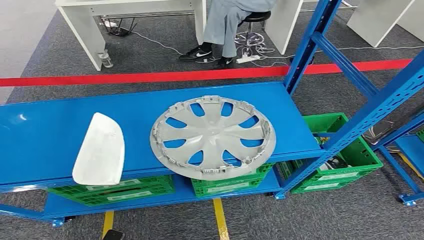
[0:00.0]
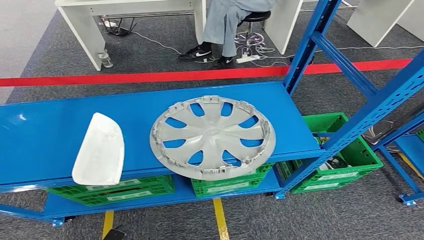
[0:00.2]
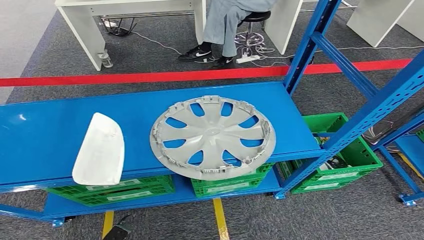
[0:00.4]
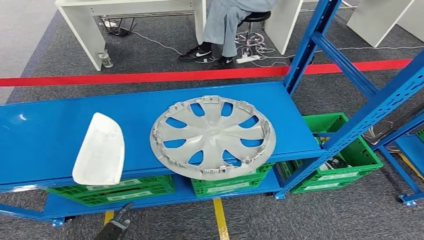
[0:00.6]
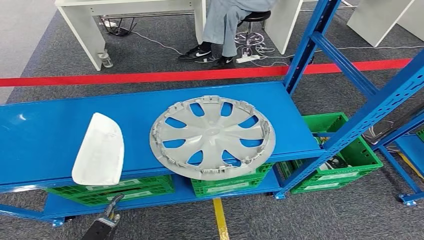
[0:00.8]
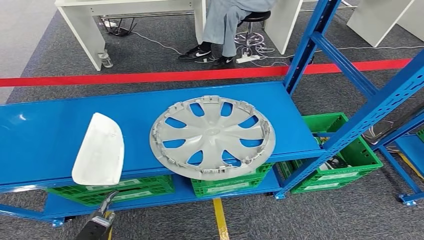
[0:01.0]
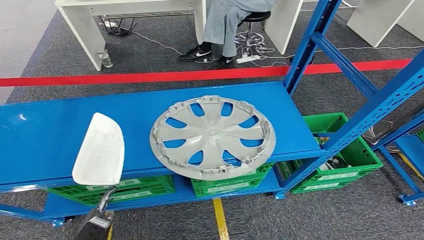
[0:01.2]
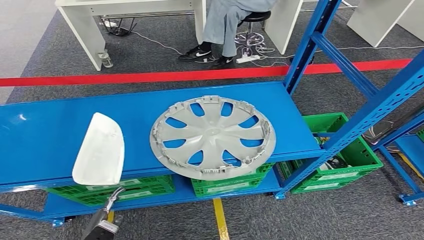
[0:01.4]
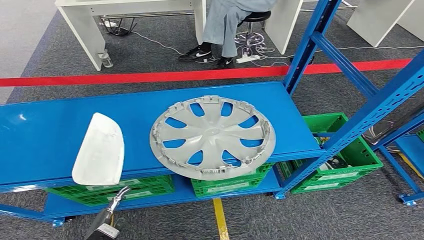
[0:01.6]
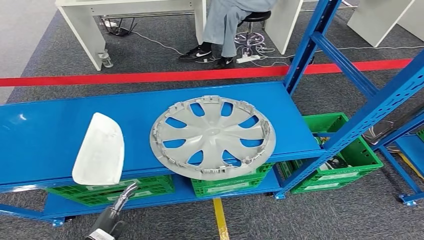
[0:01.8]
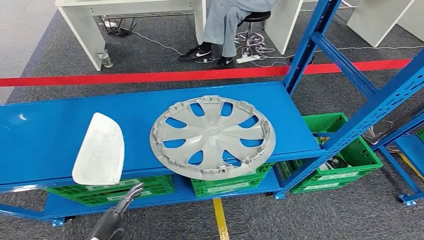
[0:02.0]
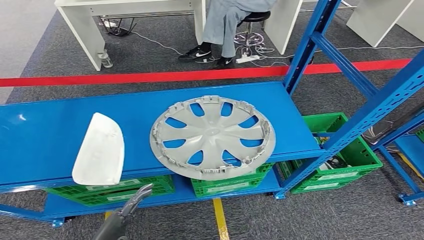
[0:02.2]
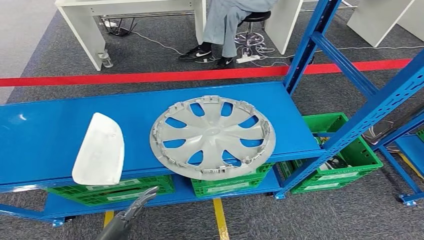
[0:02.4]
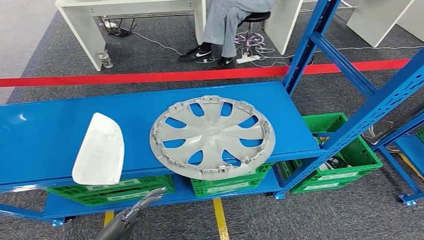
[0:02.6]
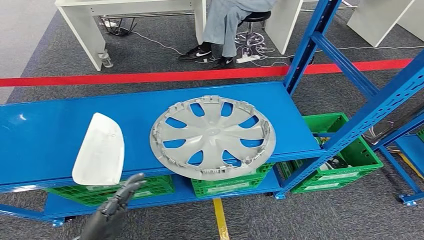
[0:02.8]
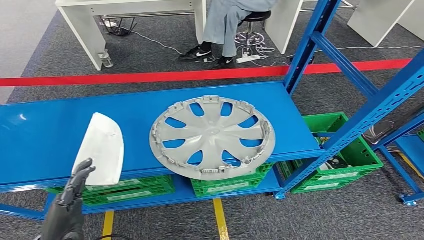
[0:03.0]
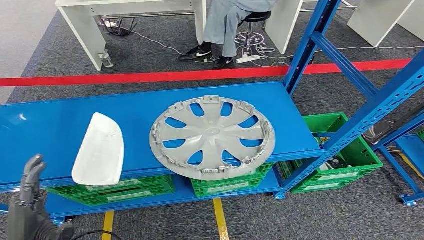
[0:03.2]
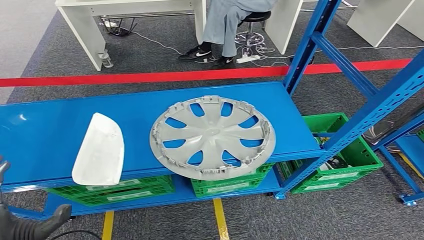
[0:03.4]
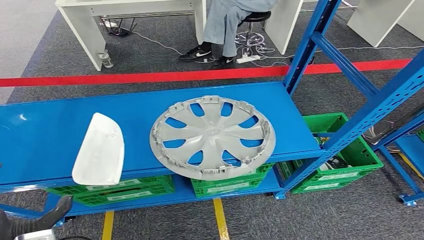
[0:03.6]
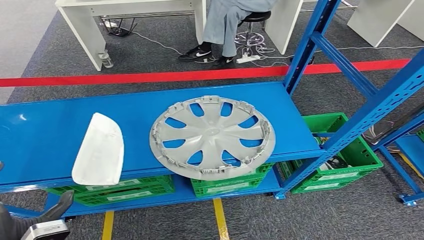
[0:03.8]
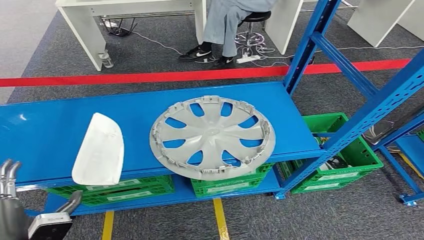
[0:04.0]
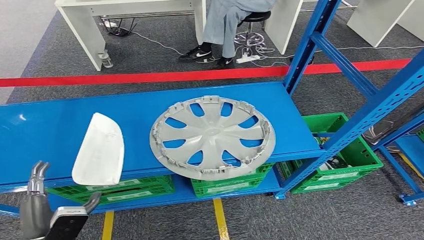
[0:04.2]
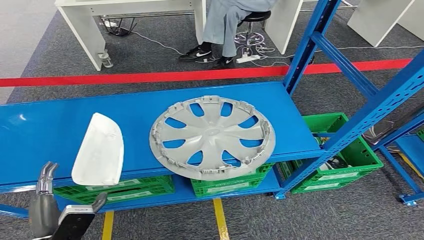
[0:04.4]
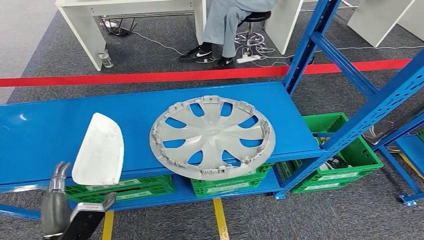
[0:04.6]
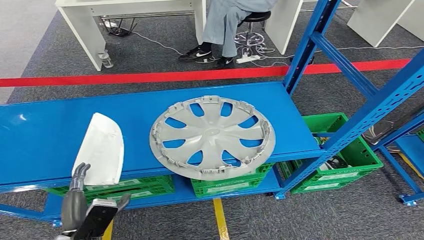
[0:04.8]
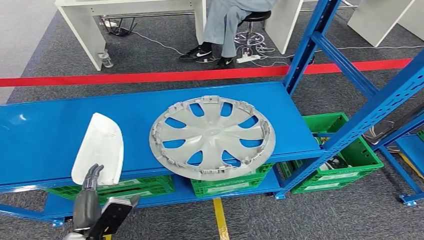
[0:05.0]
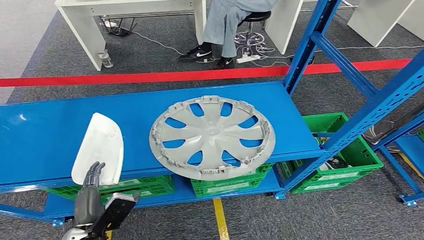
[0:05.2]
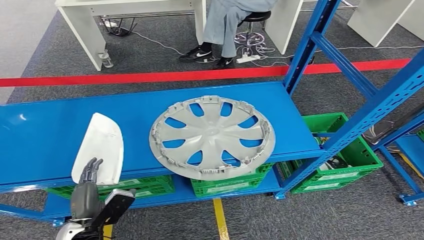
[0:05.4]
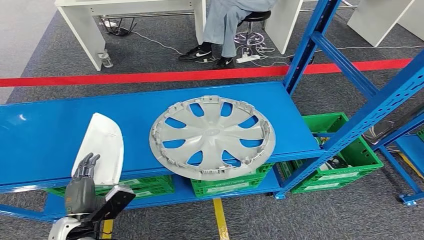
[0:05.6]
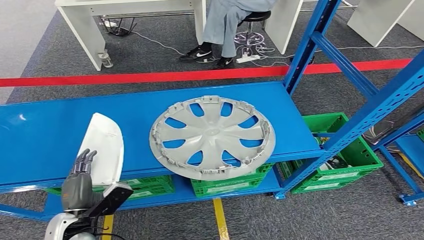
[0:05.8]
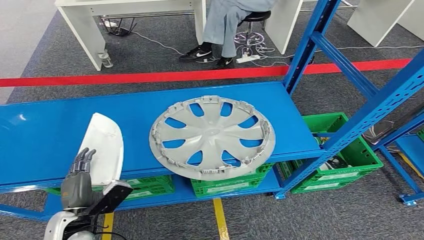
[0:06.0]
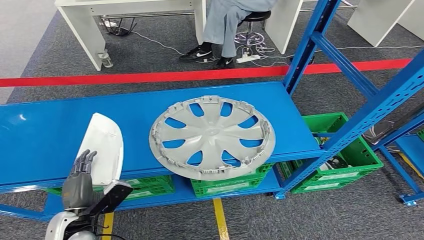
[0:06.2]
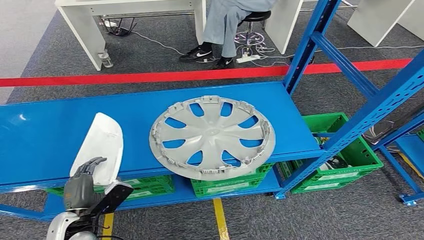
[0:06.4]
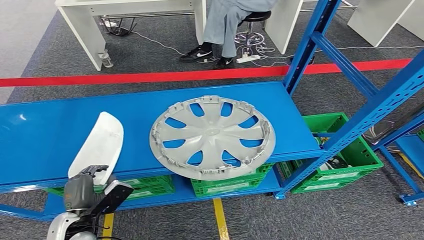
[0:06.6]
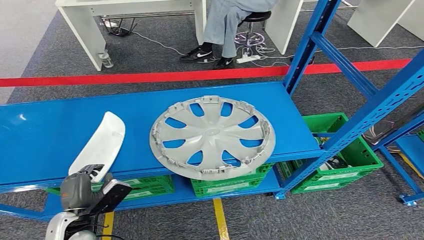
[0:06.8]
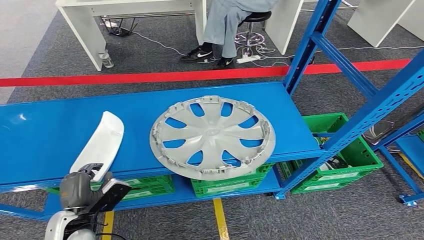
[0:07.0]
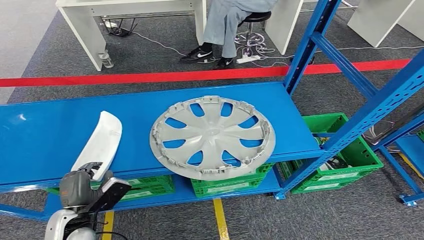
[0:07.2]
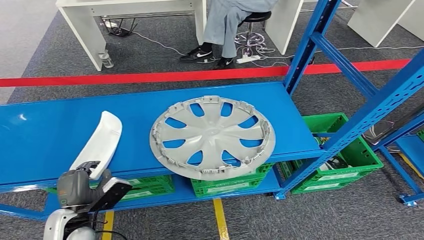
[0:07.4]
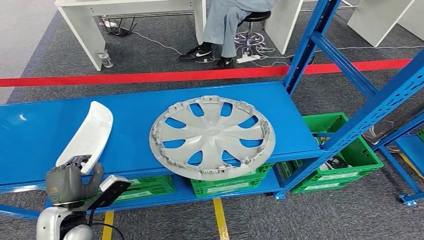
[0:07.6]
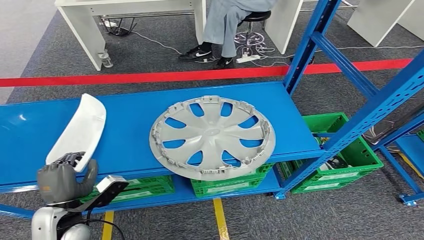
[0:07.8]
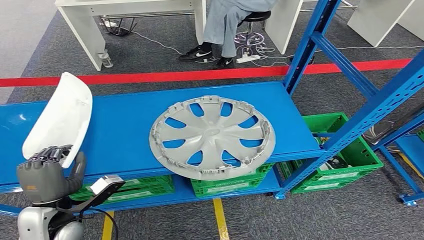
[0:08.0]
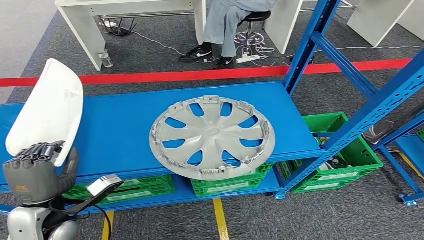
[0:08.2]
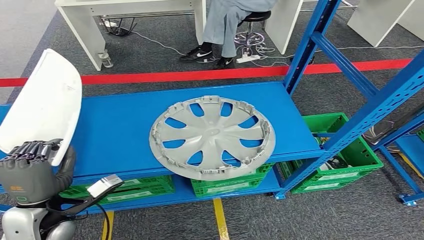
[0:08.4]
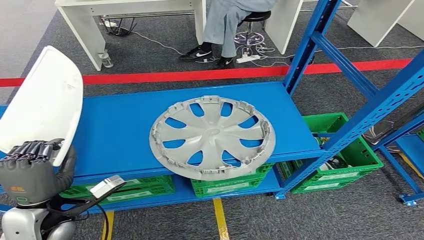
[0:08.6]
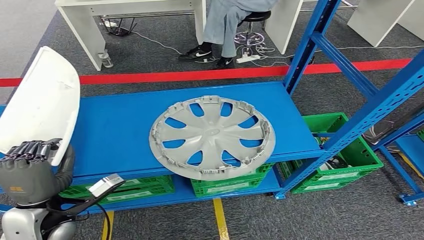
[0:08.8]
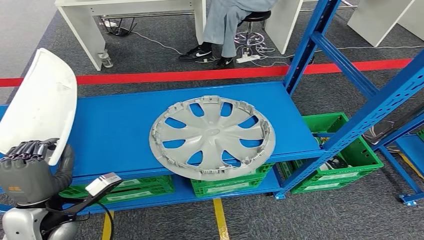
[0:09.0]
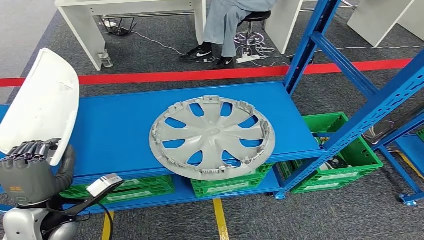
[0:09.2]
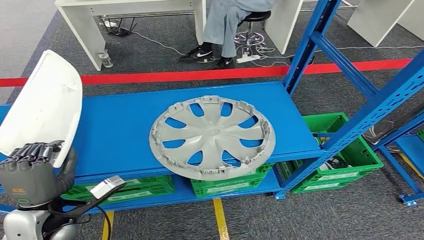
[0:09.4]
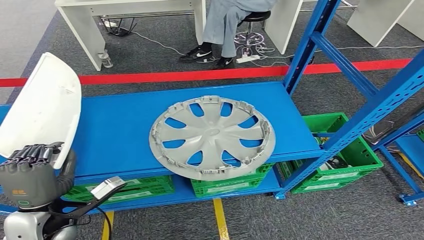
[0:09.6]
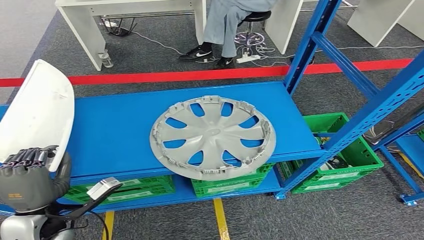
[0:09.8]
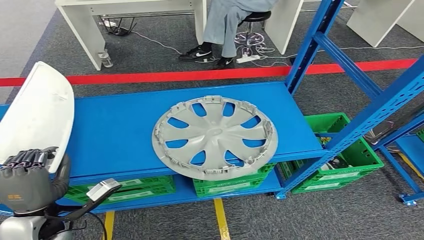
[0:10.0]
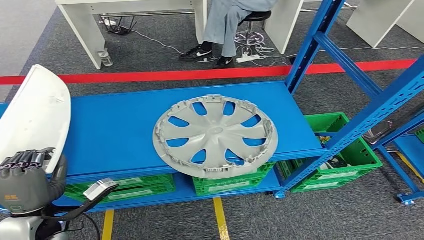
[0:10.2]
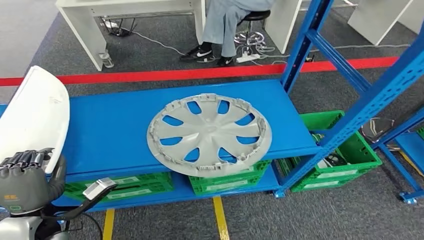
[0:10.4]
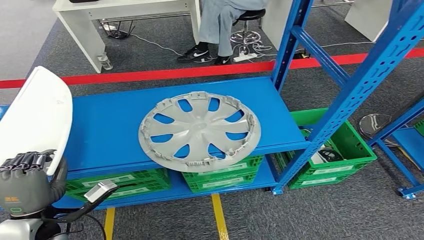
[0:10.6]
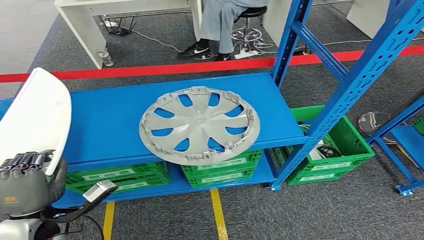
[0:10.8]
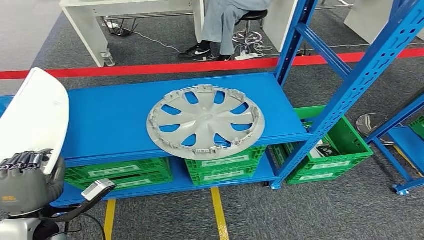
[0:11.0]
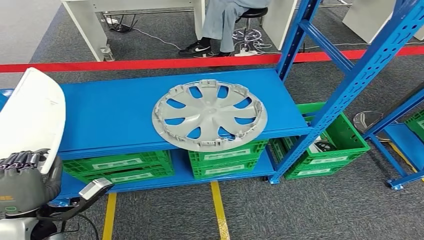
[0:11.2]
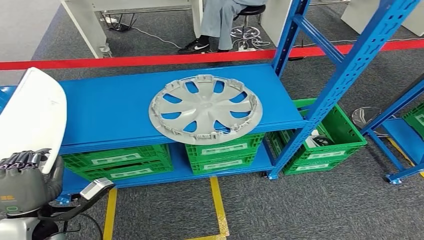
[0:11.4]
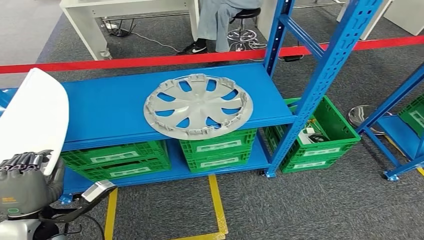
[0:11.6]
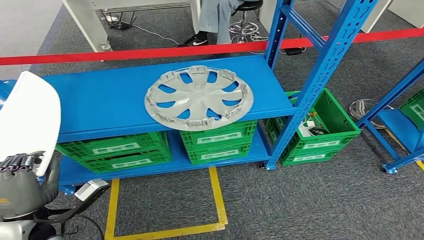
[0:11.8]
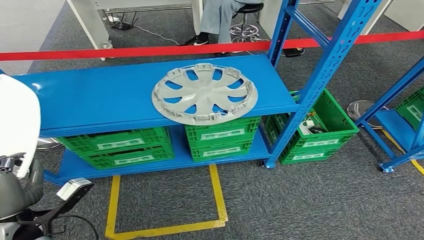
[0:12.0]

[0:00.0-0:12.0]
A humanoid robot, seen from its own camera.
0:01.6 to 0:03.0: The left hand moves upward, roughly 15 cm.
0:04.4 to 0:06.0: The left hand heads forward, covering about 5 cm.
0:06.0 to 0:07.6: The hands stay close to where they were, moving slightly.
0:07.6 to 0:09.0: The left hand is displaced upward by approximately 10 cm.
0:09.0 to 0:10.4: There are only small adjustments of the hands.

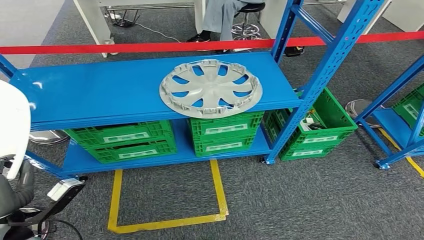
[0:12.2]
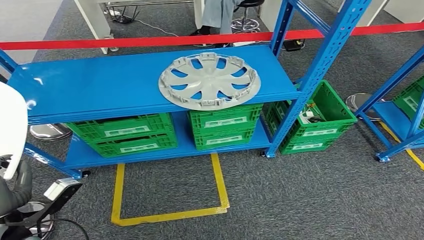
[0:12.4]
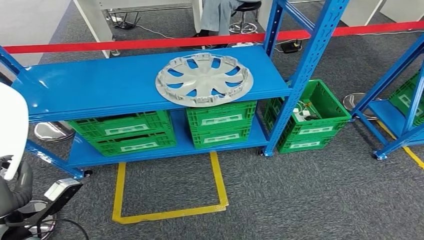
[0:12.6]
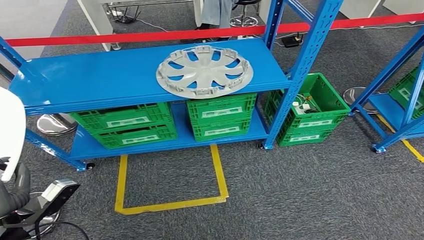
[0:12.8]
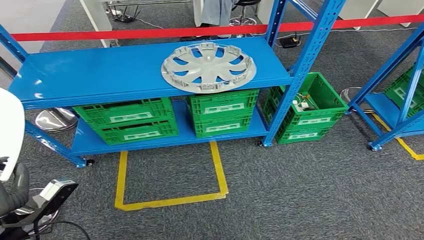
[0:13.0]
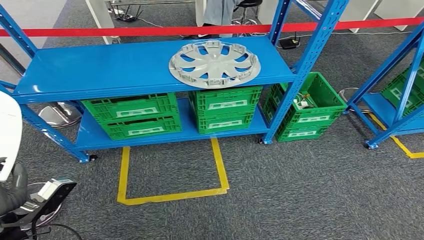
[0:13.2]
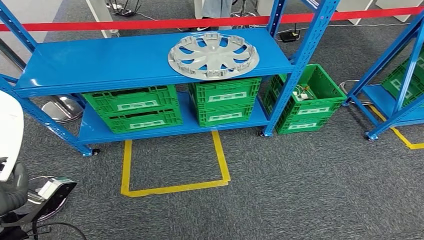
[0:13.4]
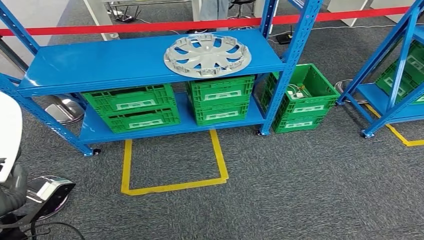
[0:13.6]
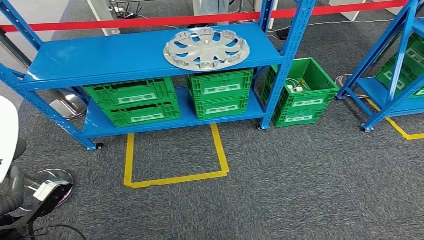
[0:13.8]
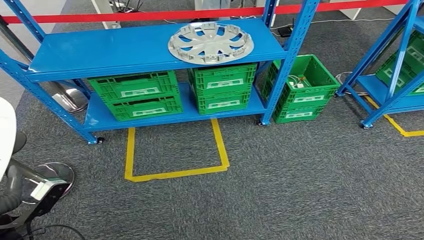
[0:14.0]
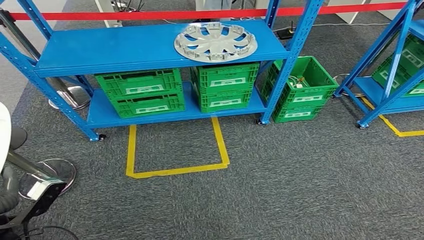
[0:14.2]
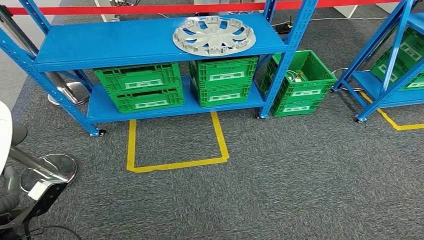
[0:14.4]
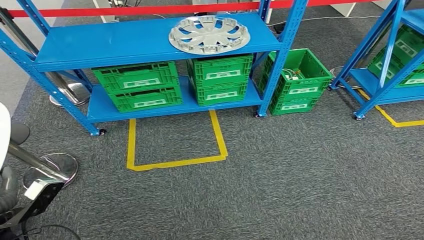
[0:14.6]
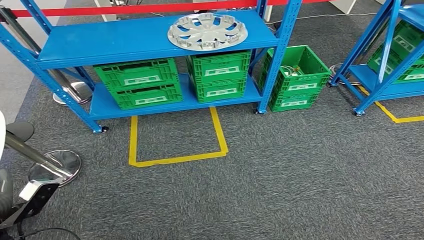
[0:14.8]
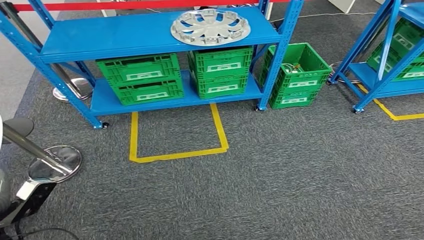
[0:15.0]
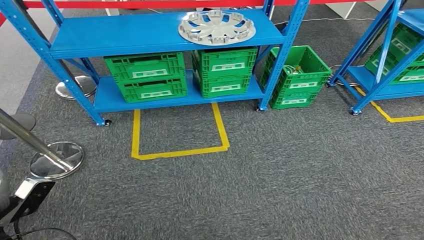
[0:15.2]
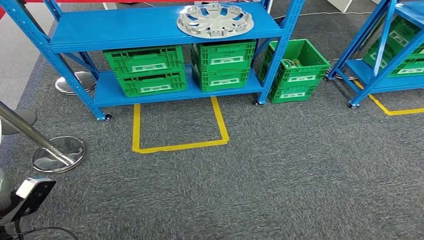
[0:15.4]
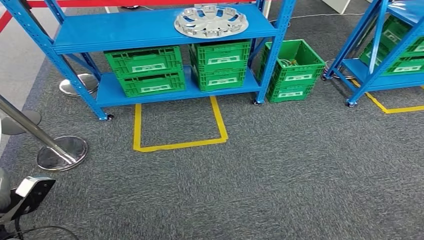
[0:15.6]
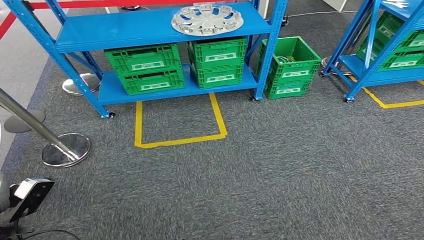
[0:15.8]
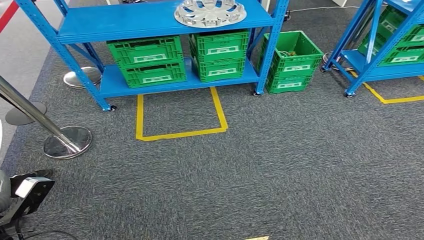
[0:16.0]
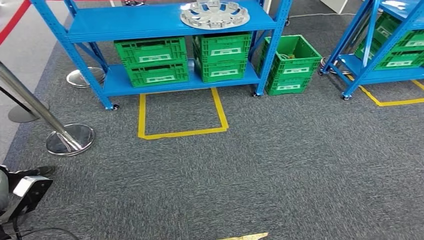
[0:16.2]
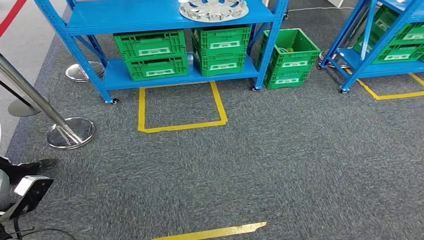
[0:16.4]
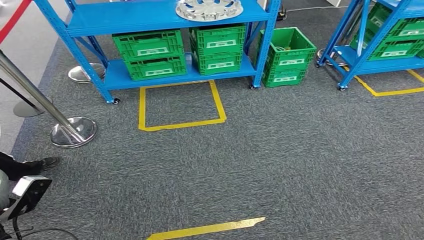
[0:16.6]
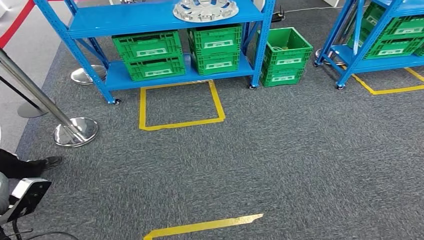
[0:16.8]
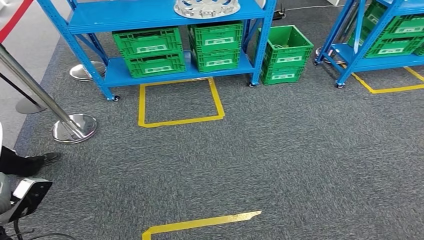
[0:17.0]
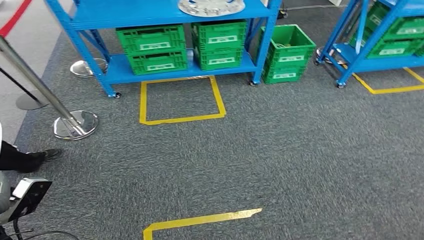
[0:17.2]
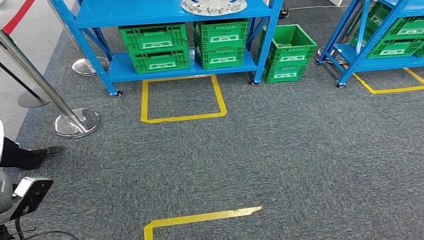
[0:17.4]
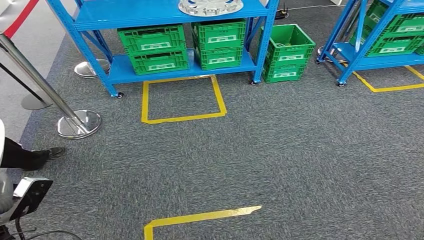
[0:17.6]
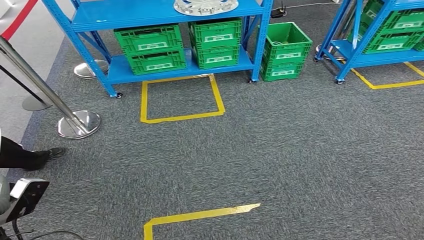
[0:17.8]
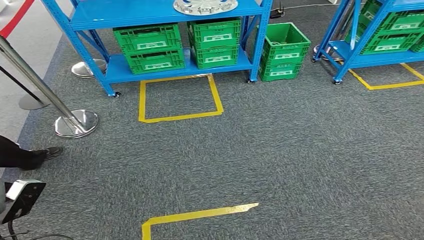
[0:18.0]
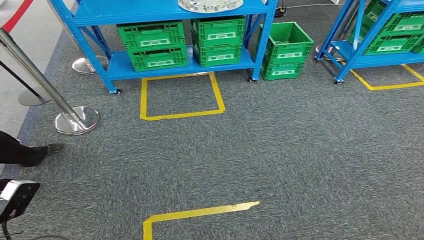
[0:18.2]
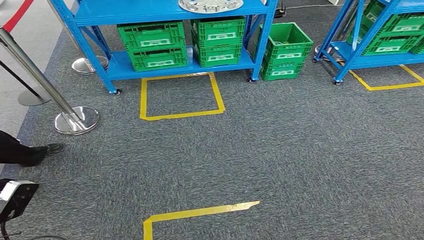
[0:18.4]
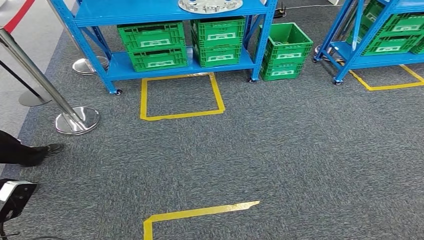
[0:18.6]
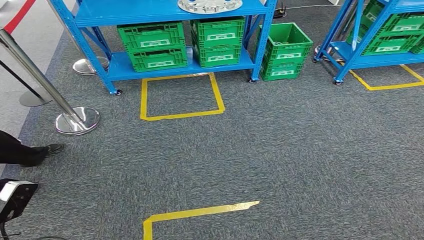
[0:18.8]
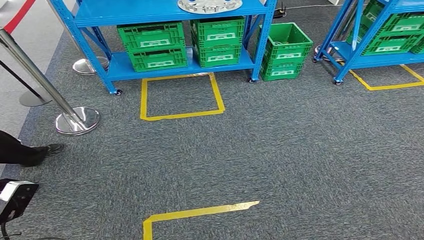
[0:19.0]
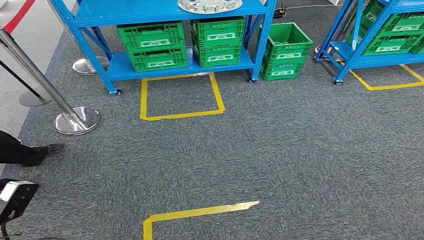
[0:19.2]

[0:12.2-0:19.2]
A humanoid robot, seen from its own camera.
Step, 0:12.2 to 0:14.4: Pick up the small component from the shelf.
0:17.8 to 0:19.2: The hands stay close to where they were, moving slightly.
